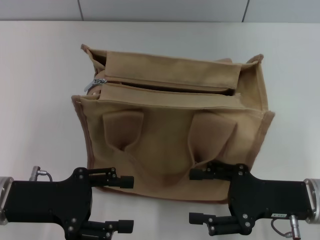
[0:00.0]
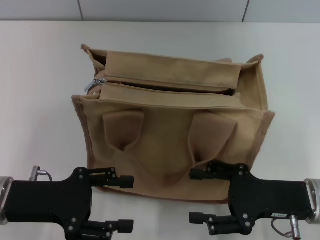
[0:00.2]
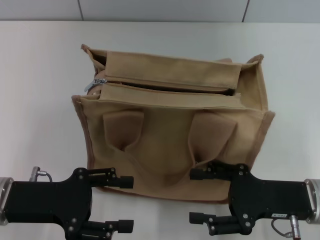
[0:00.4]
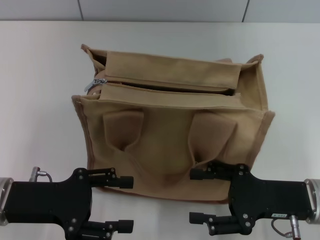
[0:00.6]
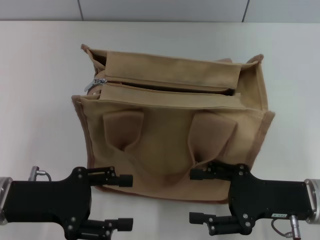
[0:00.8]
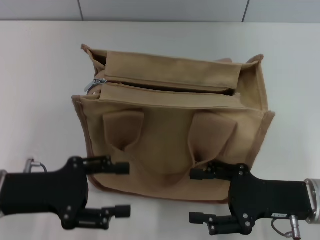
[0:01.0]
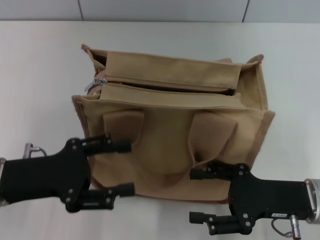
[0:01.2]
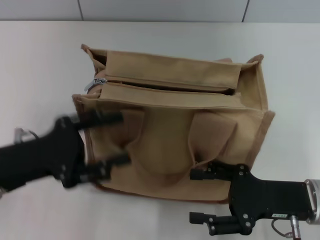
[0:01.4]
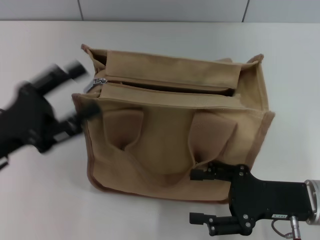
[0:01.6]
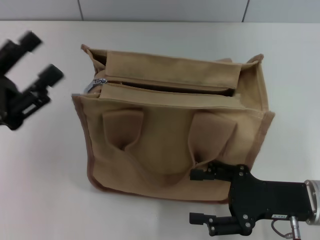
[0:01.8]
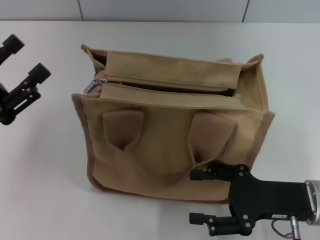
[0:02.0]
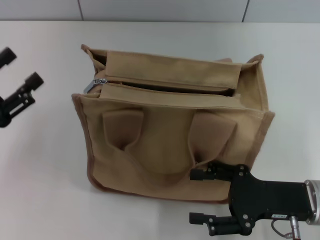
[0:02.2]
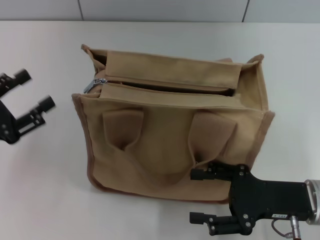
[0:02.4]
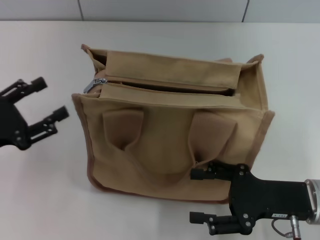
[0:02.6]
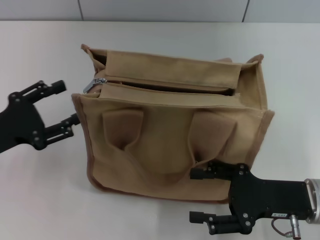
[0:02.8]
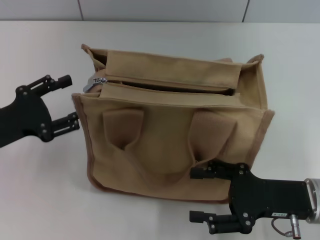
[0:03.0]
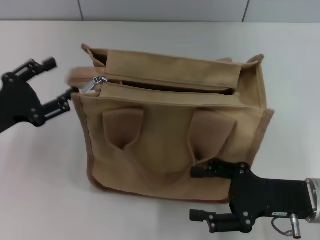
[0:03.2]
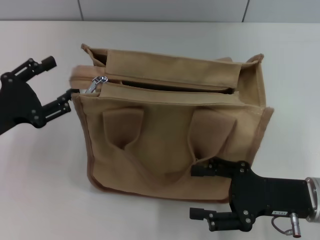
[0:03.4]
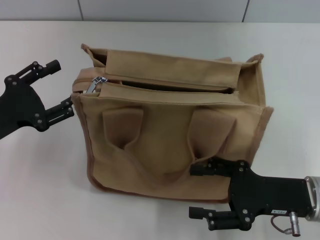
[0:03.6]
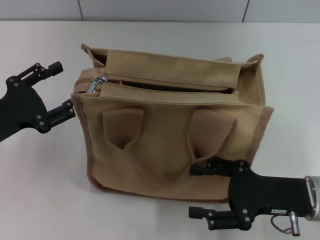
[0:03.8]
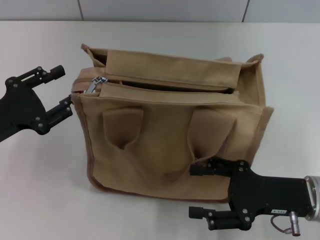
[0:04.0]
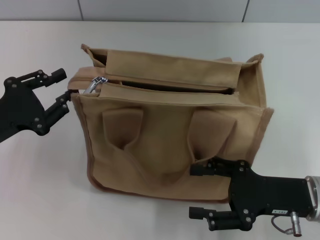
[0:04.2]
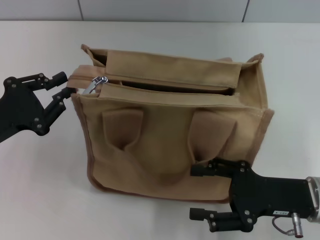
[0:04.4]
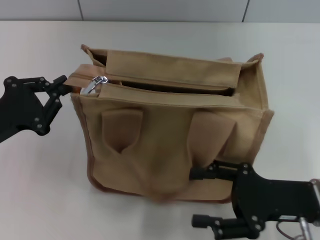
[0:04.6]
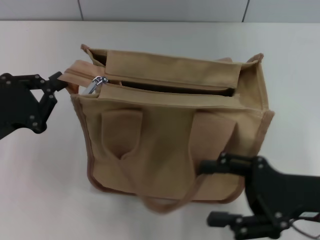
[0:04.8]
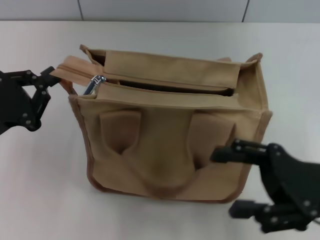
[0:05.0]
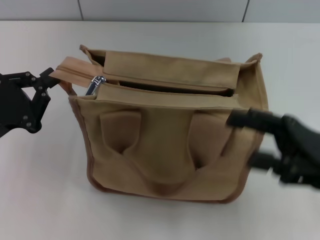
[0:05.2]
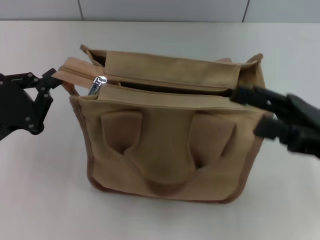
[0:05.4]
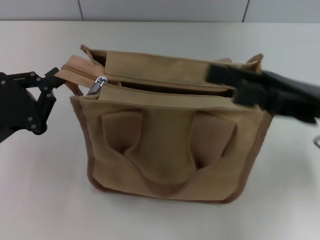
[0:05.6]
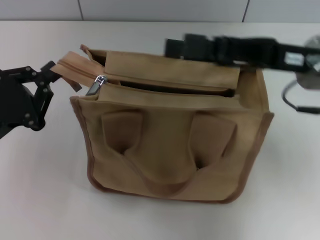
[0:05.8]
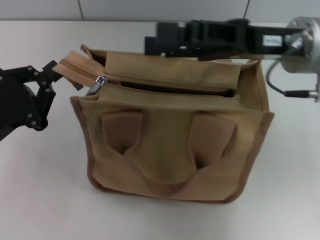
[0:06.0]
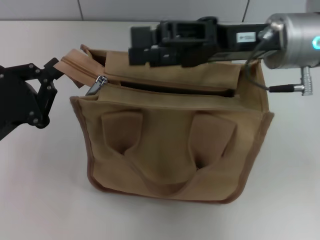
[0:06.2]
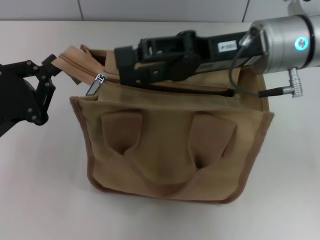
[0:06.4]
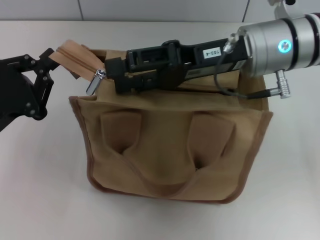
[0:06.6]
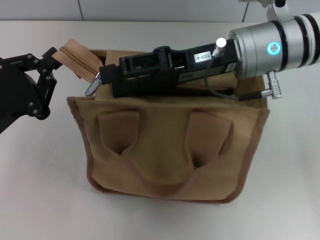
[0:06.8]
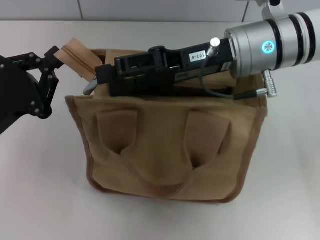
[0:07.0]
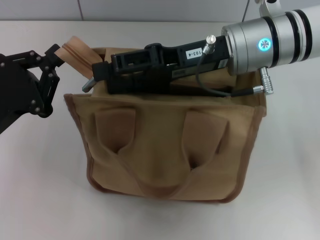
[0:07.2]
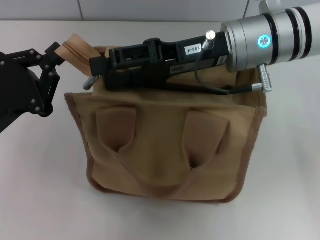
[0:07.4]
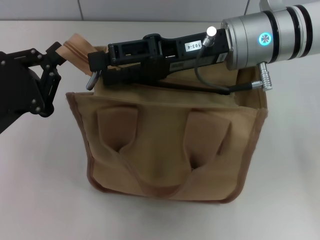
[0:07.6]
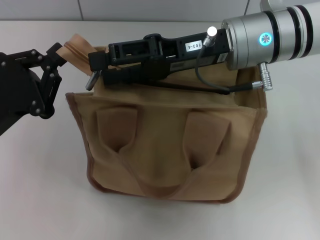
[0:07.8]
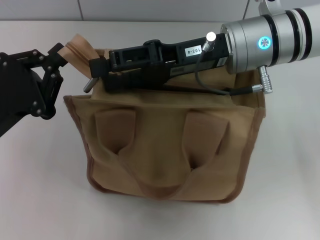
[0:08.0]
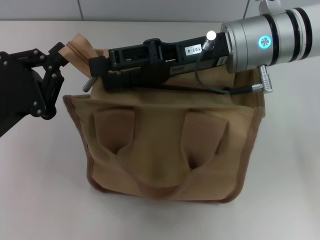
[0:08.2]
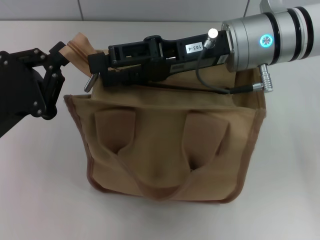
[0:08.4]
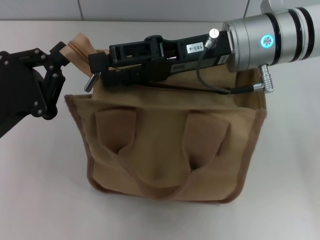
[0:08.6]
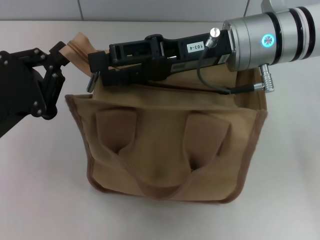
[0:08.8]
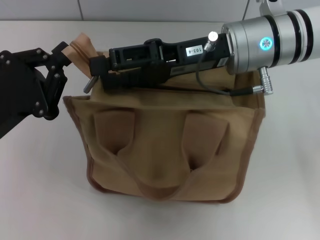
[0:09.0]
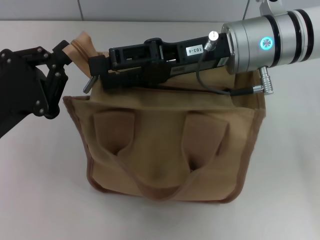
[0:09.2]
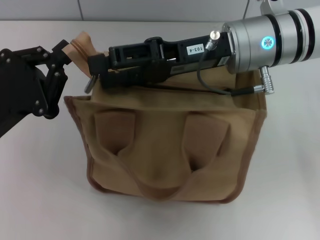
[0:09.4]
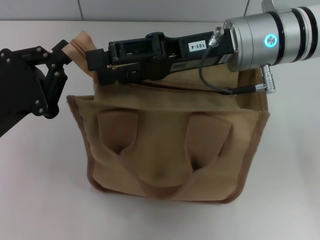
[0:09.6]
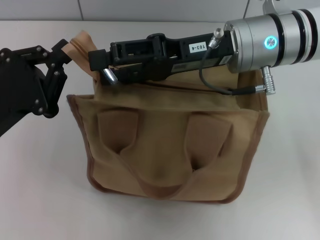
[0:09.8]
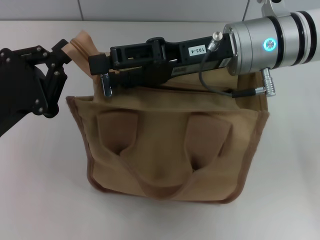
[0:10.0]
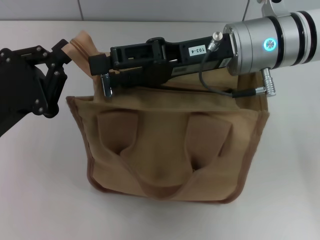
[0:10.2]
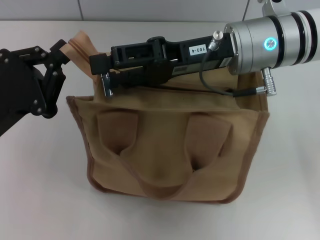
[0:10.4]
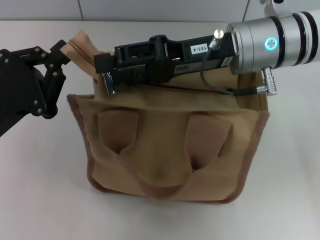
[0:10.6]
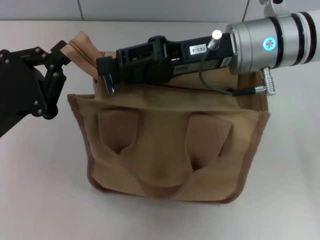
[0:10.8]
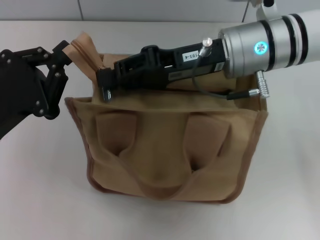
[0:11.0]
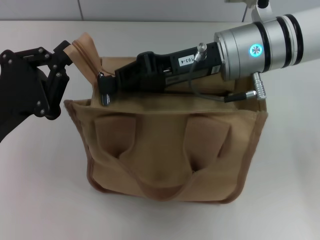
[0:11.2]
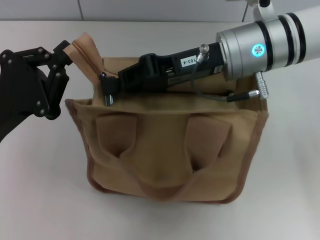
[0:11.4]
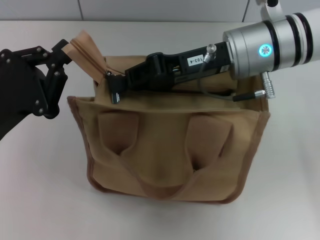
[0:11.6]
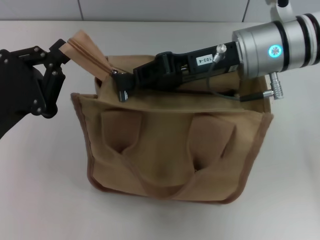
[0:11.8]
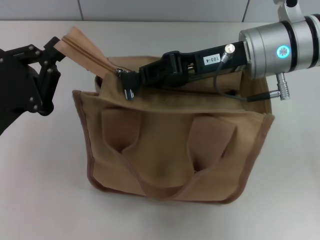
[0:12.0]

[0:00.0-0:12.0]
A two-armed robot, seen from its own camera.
0:01.6 to 0:03.0: The left gripper changes place by some 5 cm.
0:03.0 to 0:04.4: The left gripper closes its fingers.
0:04.4 to 0:06.0: The right gripper goes some 20 cm upward and forward. Meanwhile the left gripper closes up.
0:06.0 to 0:07.6: The right gripper moves to the left, some 5 cm.
0:07.6 to 0:09.0: Both grippers stay about where they are.
0:09.0 to 0:10.4: Both grippers stay about where they are.
0:10.4 to 0:12.0: The right gripper closes.

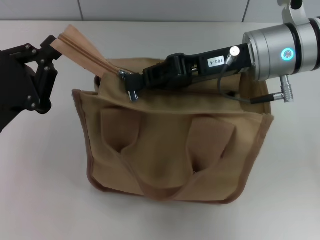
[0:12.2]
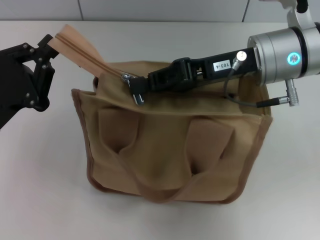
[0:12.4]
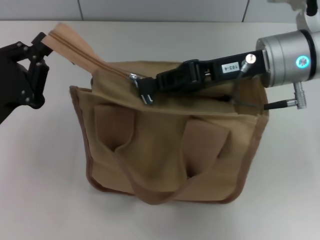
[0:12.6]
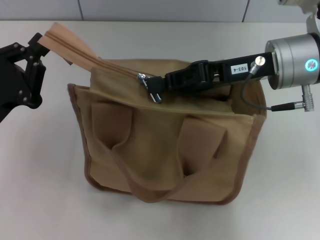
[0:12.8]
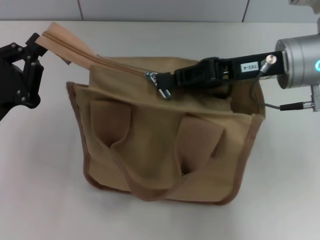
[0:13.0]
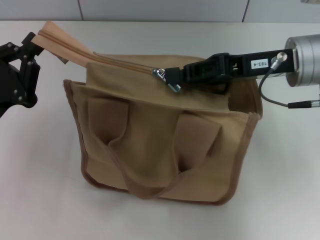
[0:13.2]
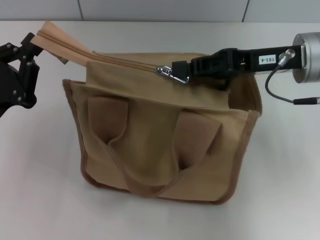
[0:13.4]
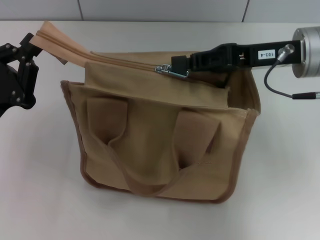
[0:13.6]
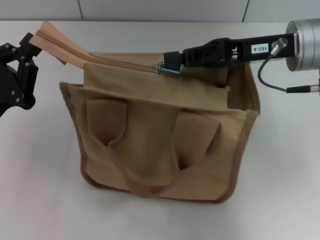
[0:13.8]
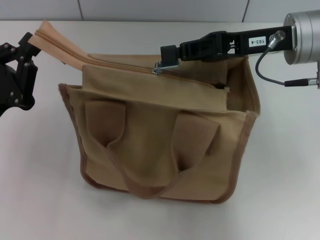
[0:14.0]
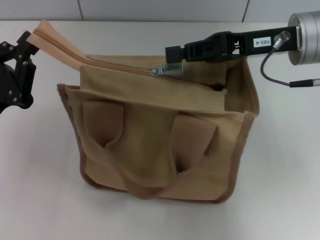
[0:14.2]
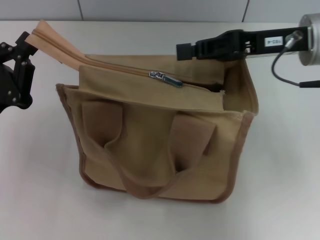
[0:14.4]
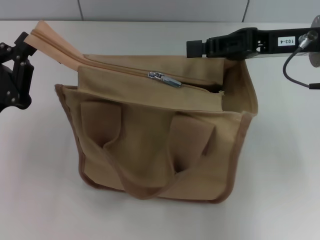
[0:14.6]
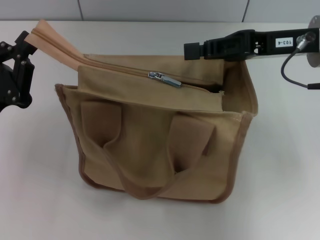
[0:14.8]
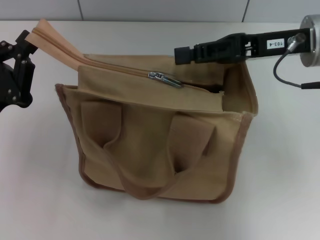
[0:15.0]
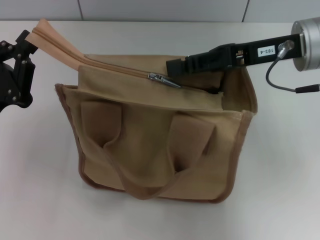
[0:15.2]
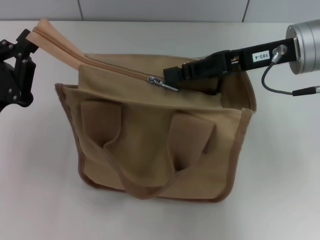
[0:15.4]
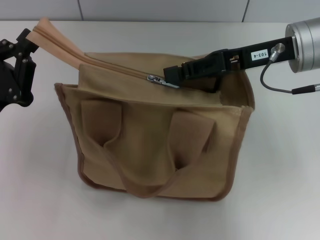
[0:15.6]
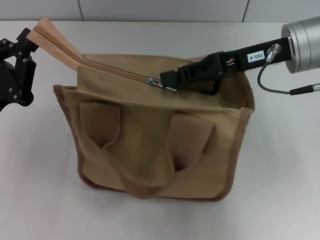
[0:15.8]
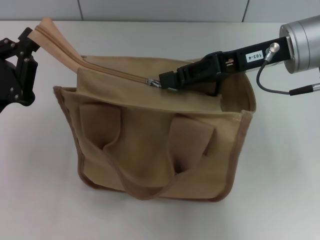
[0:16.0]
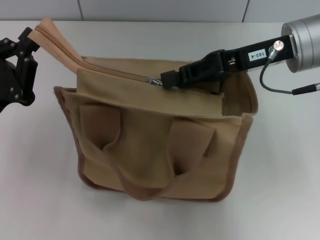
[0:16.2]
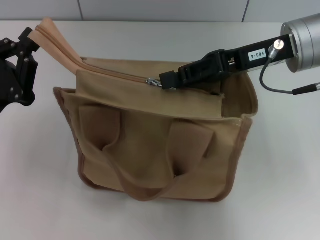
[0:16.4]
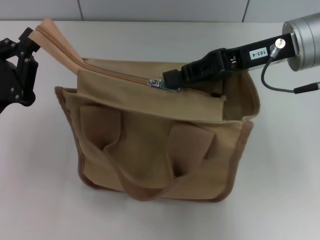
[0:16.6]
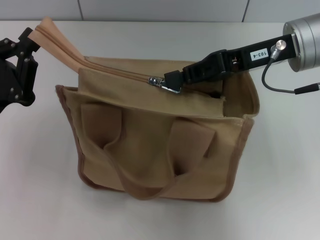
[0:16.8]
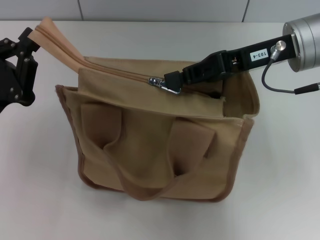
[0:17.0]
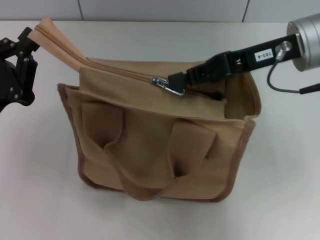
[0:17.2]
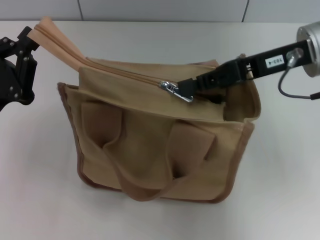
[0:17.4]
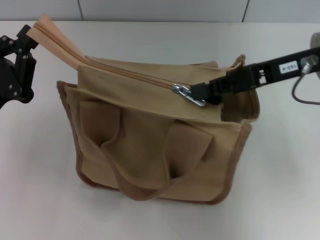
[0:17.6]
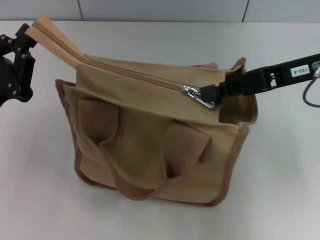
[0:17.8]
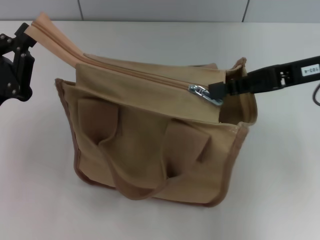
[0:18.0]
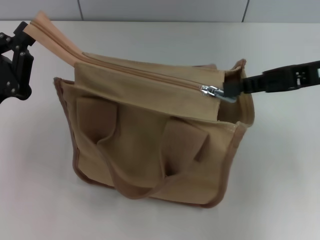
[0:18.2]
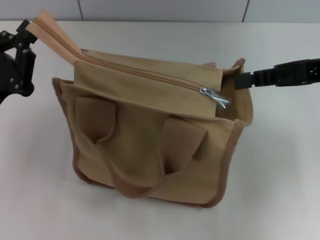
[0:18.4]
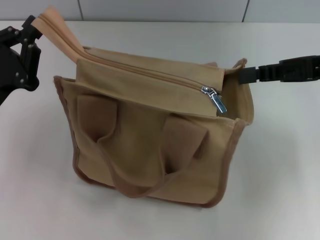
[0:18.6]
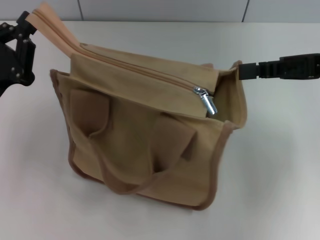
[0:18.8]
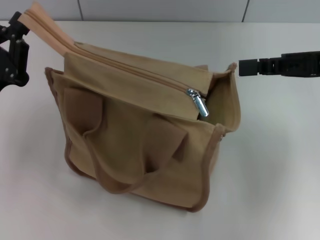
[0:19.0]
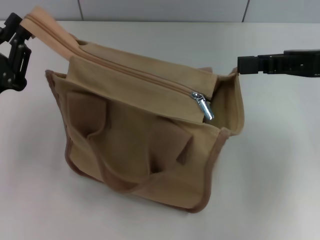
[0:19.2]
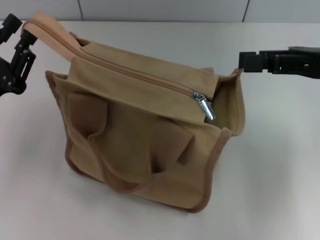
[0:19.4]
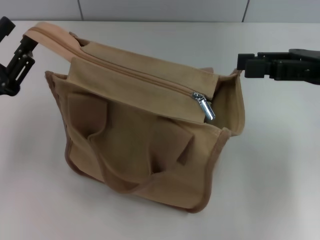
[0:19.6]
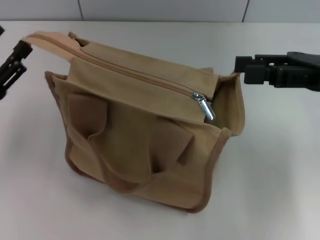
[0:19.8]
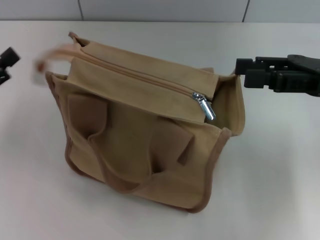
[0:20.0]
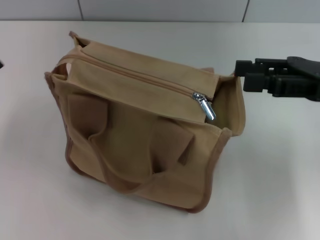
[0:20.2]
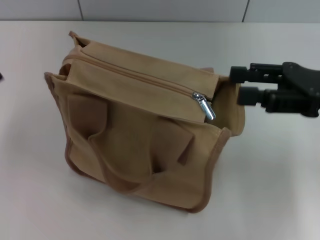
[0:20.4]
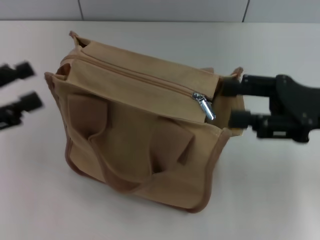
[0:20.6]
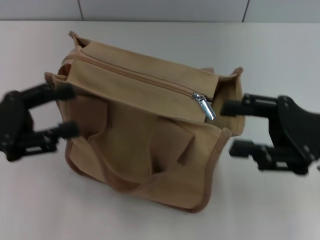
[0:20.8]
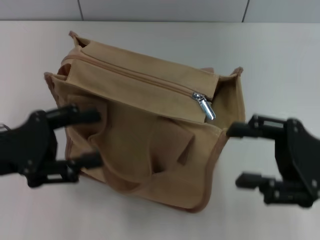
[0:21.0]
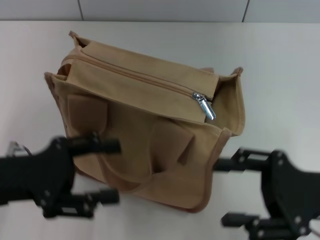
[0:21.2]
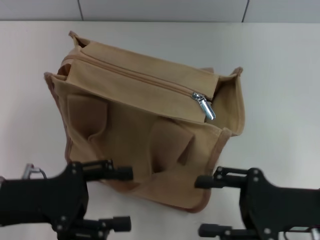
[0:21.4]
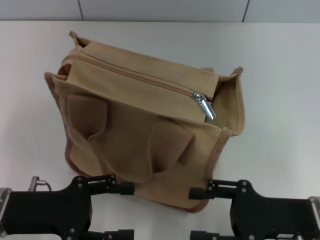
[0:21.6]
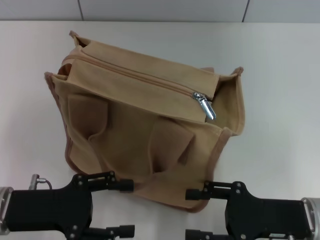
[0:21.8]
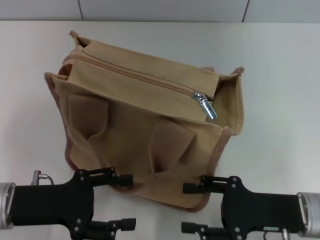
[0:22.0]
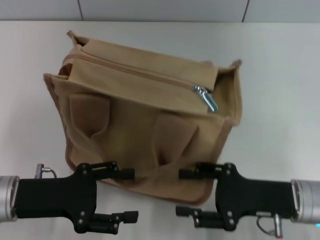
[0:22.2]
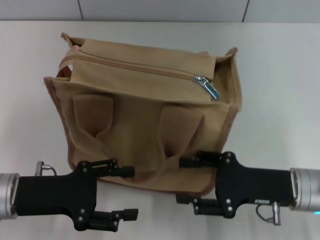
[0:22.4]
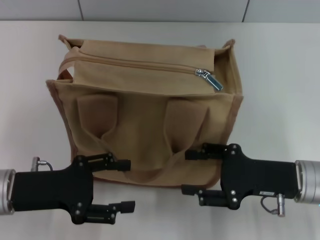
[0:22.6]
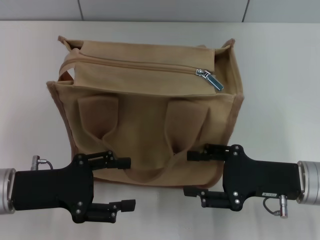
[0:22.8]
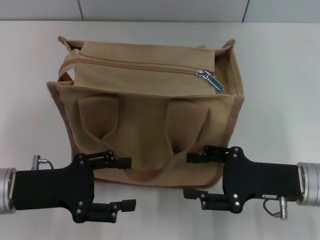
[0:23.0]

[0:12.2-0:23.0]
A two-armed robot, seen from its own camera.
Step, 0:12.2 to 0:18.4: Pull up the zipper with your right hand.
Step, 0:18.6 to 0:20.0: Grab the zipper with your left hand.
0:13.8 to 0:16.8: There are only small adjustments of the grippers.
0:16.8 to 0:18.4: The right gripper goes about 10 cm to the right.
0:18.4 to 0:20.0: The right gripper opens its fingers; the left gripper is displaced to the left by approximately 5 cm, and opens.
0:20.0 to 0:21.4: The left gripper moves to the right, approximately 10 cm. Meanwhile the right gripper heads downward and backward, covering approximately 15 cm.
